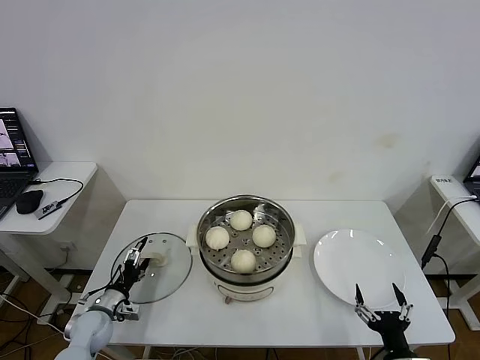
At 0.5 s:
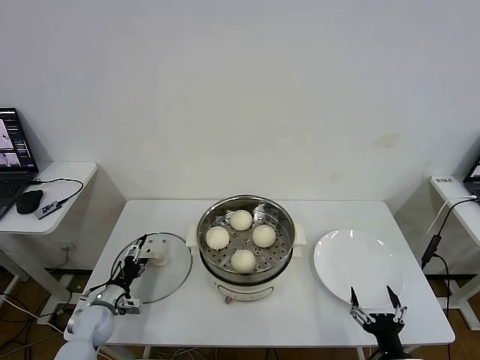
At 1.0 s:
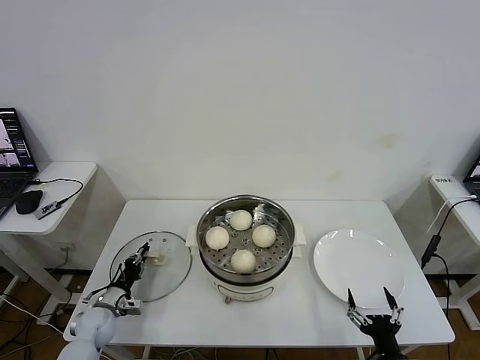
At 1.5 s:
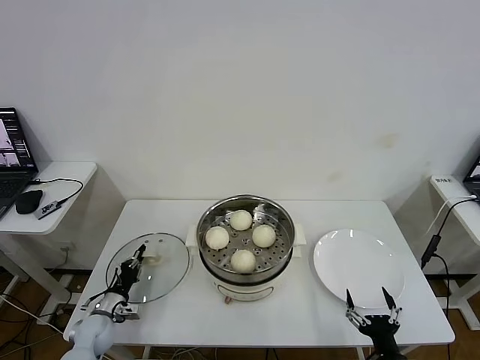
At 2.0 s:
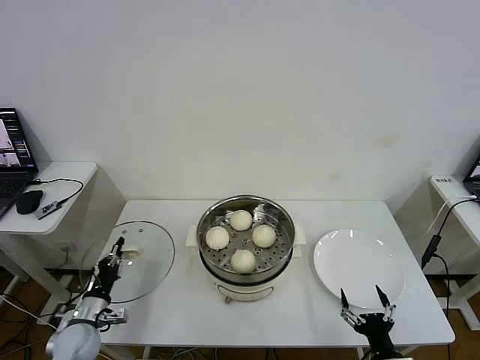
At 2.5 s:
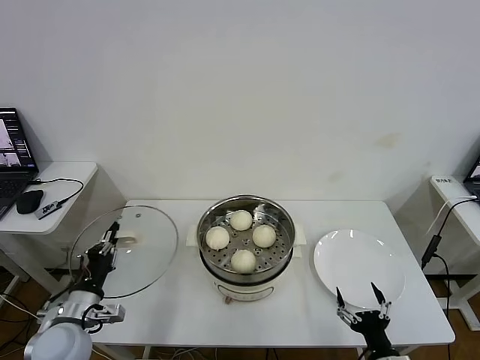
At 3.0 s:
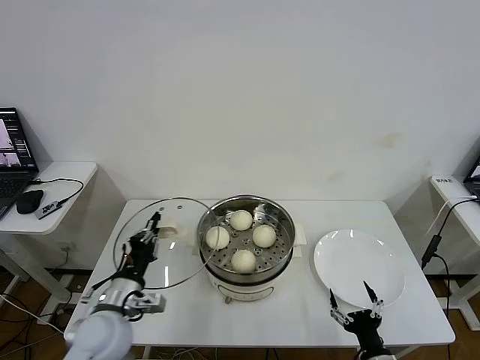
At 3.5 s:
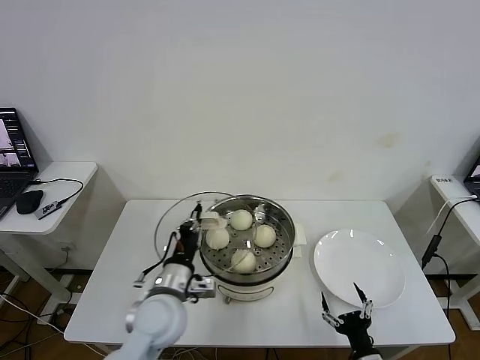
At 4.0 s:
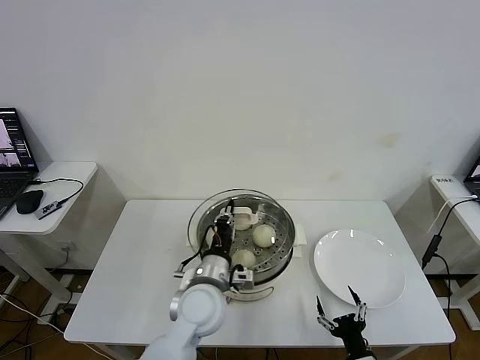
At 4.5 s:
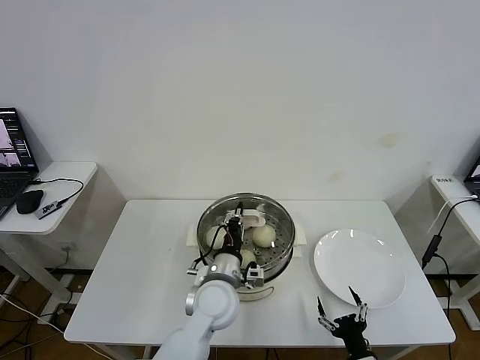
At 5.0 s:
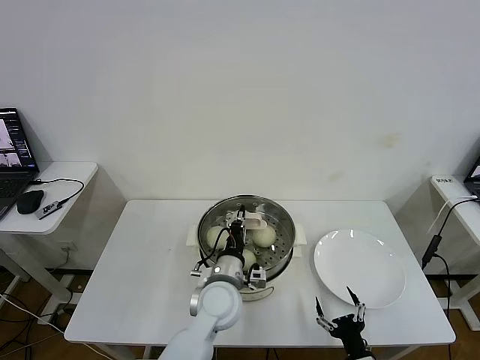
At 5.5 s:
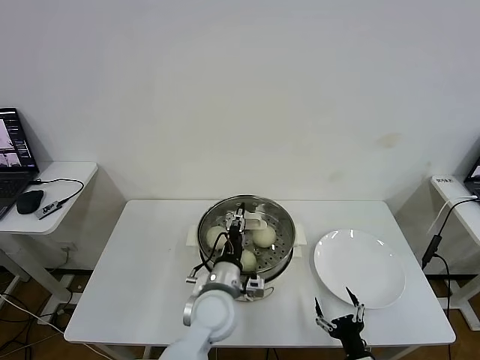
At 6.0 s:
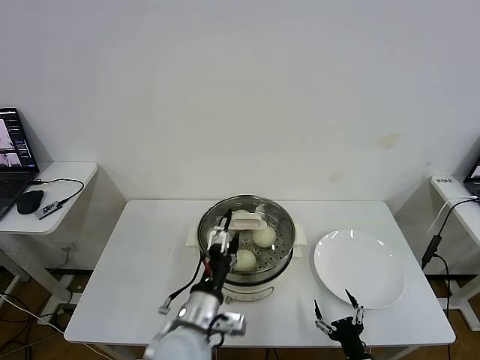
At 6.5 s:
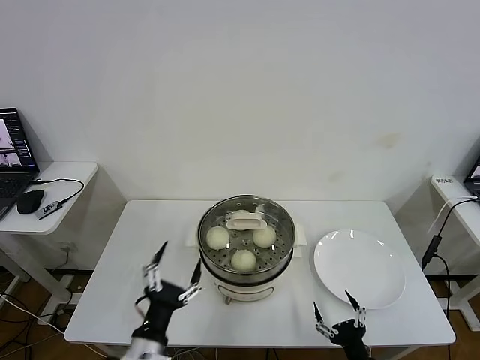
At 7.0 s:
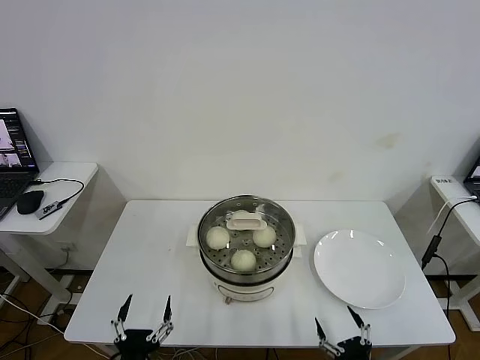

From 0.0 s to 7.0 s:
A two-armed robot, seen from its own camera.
Task of the whole recording: take steamed baozi put them in steamer then cover it.
Step, from 1.5 s to 5.0 s: Place the pot lid on the steamer with left gripper.
From 0.0 s to 2.0 s: The left gripper closes its fingers.
From 2.0 s to 3.5 s: The left gripper moves to the right and upward, about 25 cm.
From 3.5 s to 5.0 s: The left gripper shifts approximately 10 cm to the right.
From 5.0 s to 7.0 s: The left gripper shifts about 30 cm backward and to the left, and opens. Meanwhile the right gripper heads backward, covering about 5 cm.
